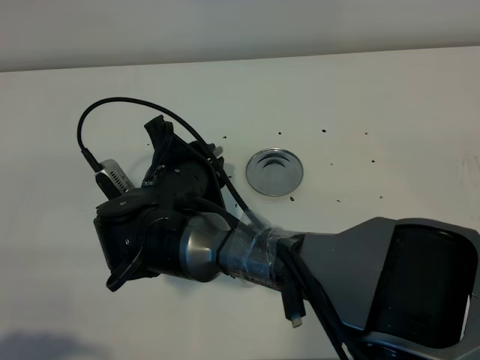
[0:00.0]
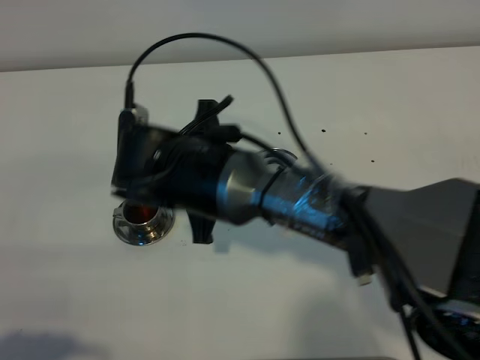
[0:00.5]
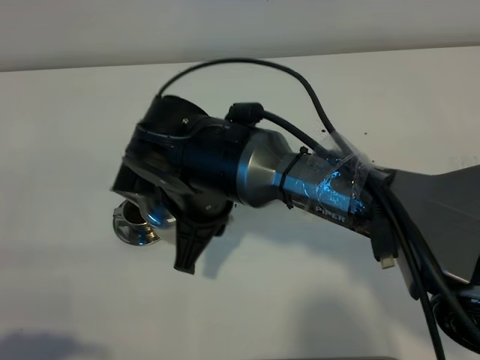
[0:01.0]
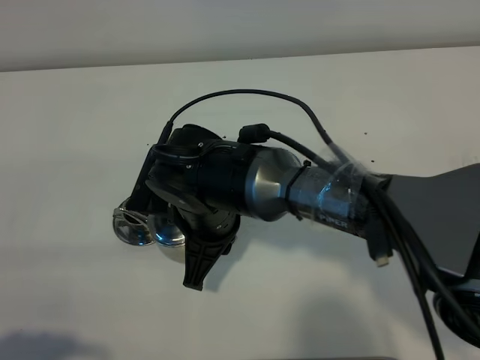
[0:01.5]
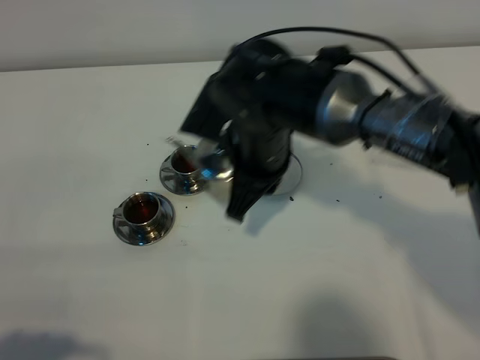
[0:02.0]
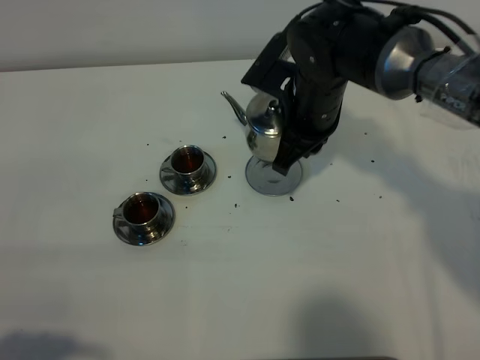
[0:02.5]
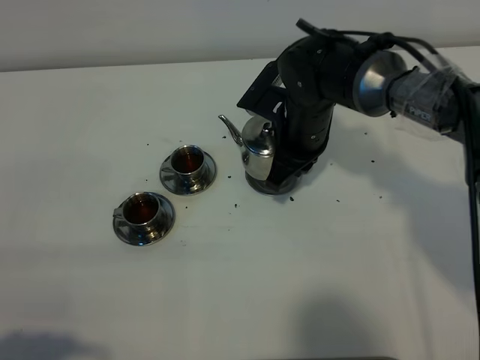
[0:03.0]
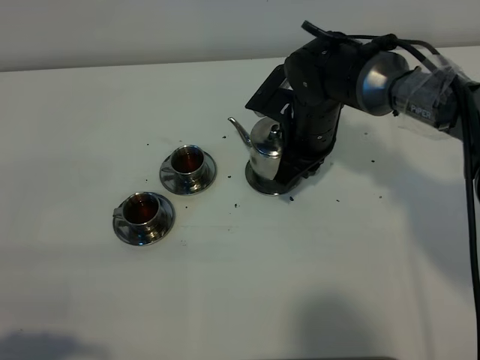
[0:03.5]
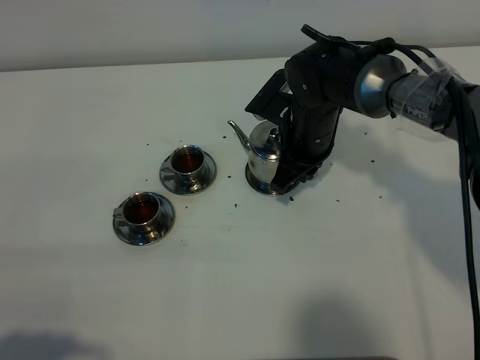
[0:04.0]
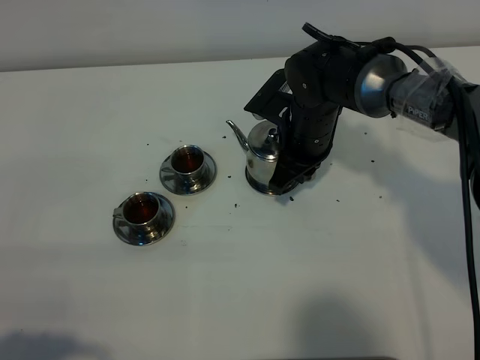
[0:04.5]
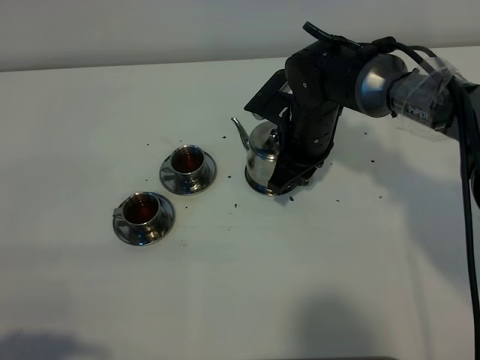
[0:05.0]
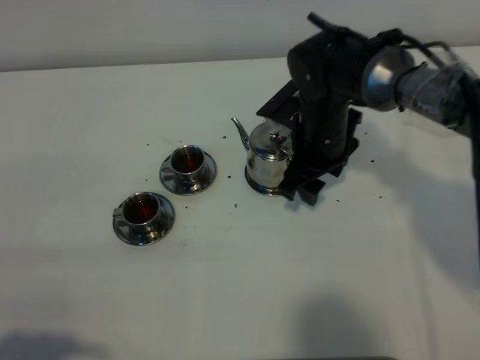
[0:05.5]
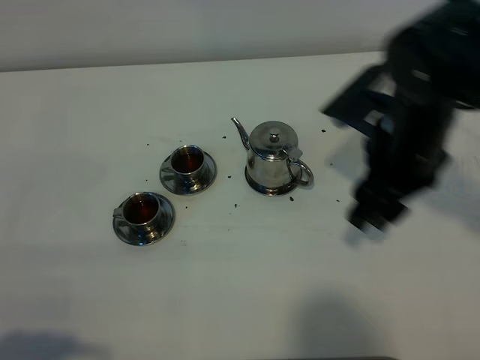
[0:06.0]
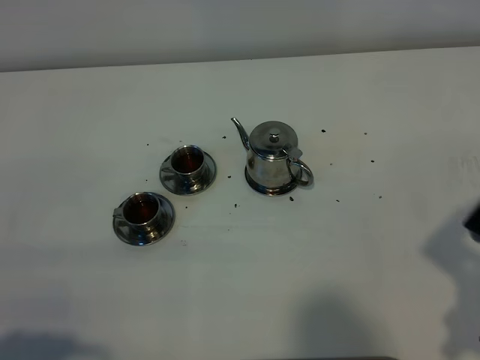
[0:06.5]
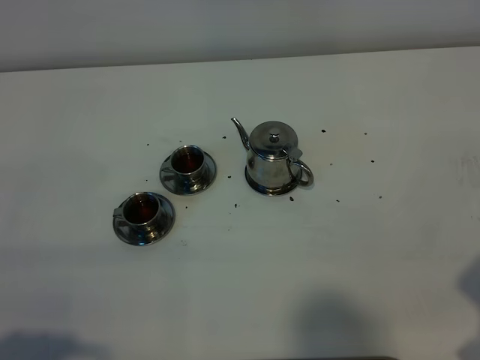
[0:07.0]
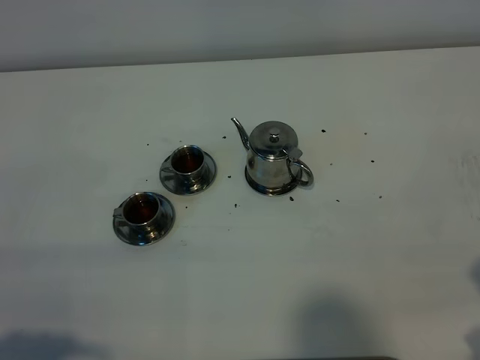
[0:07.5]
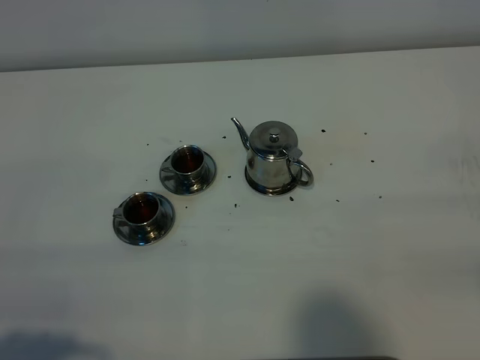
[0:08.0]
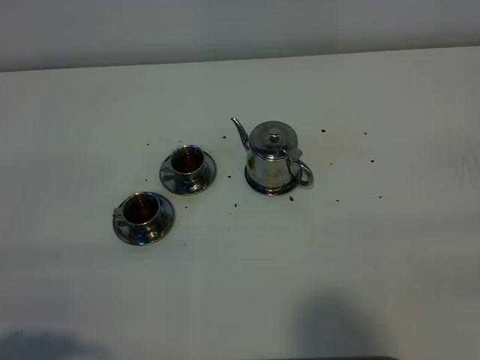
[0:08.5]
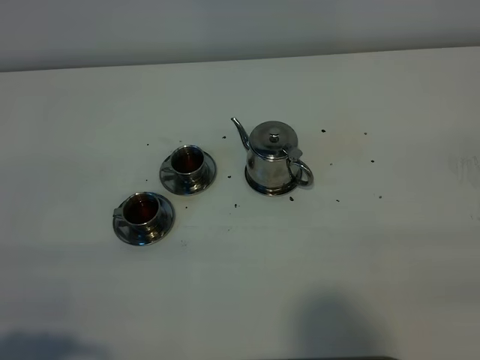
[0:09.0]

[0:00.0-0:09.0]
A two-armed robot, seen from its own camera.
Task of the whole recording: grasp the stainless steel teapot and pour the tea into the two stainless steel teacups one by one, put the stainless steel teapot back in its original place.
0:00.0 to 0:02.0: The right gripper heads to the right, upward and forward, covering approximately 15 cm.
0:02.0 to 0:04.5: The right gripper shifts approximately 10 cm forward, downward and to the right.
0:04.5 to 0:07.0: The right gripper travels backward and to the right by about 35 cm, and opens.

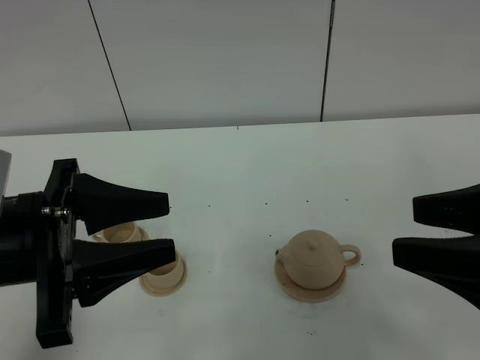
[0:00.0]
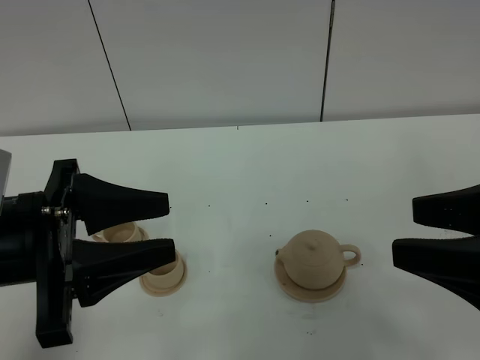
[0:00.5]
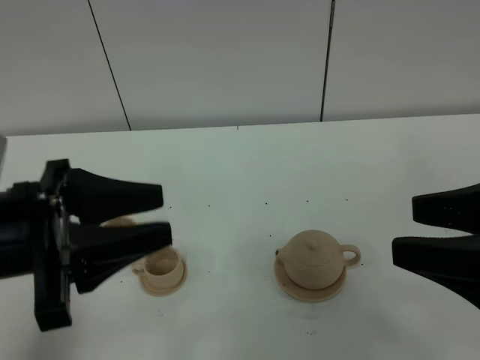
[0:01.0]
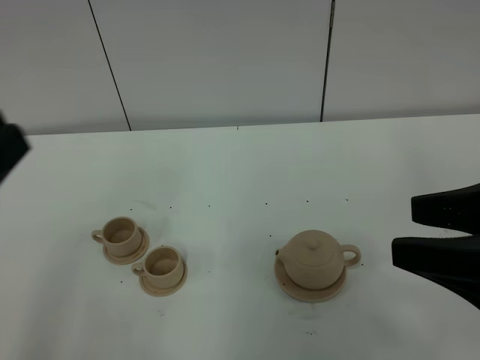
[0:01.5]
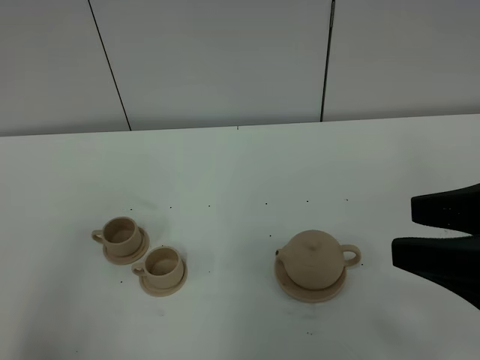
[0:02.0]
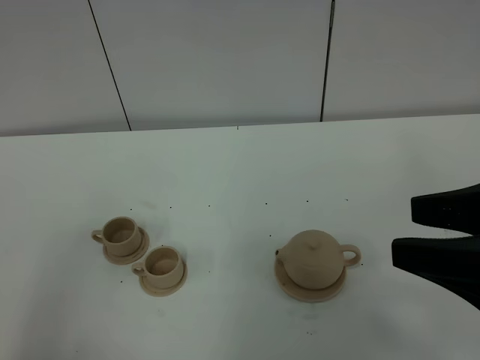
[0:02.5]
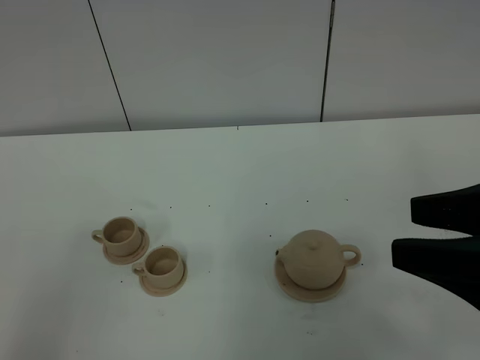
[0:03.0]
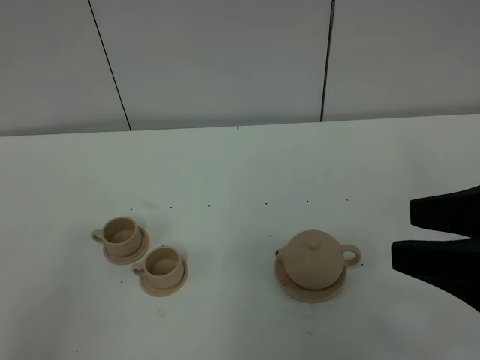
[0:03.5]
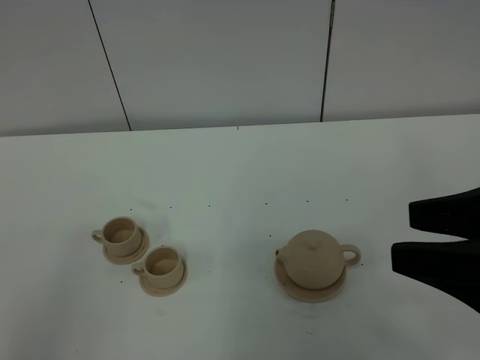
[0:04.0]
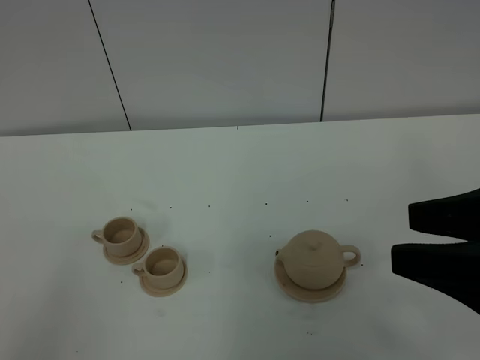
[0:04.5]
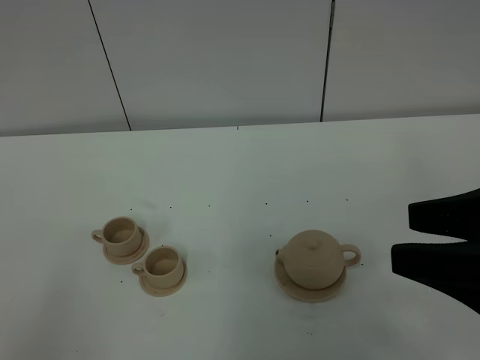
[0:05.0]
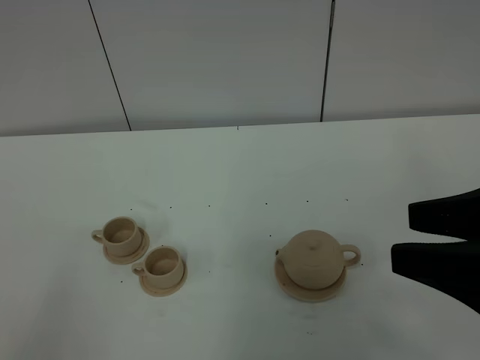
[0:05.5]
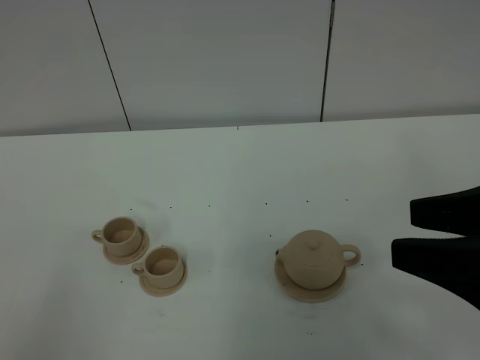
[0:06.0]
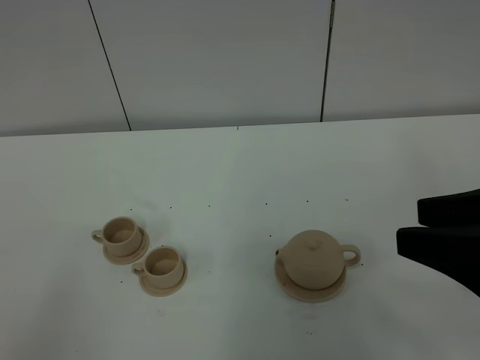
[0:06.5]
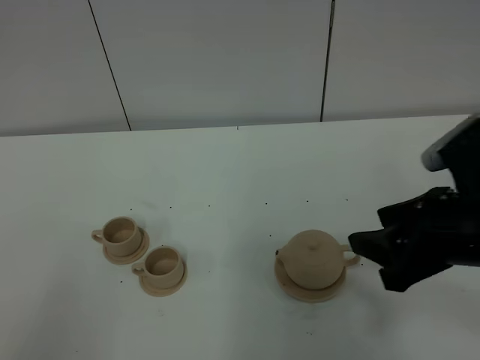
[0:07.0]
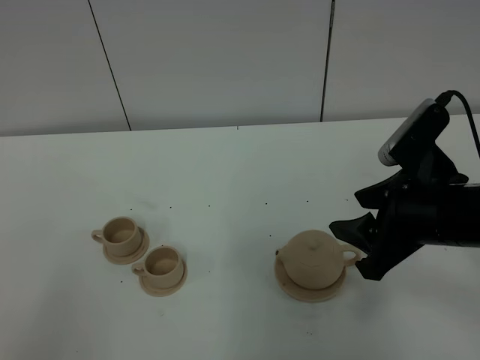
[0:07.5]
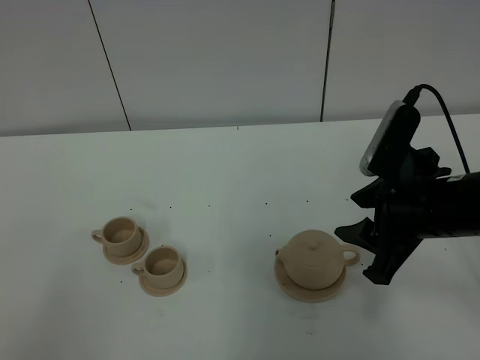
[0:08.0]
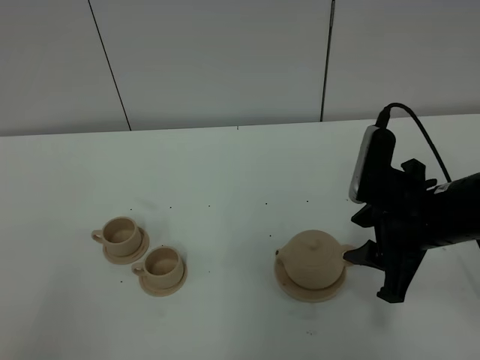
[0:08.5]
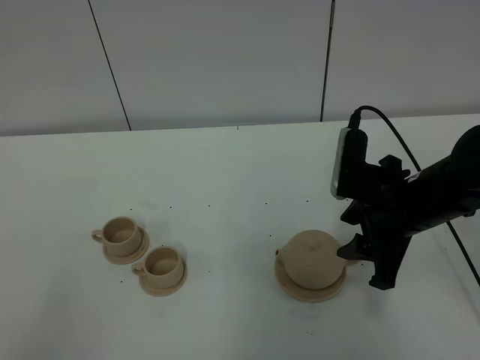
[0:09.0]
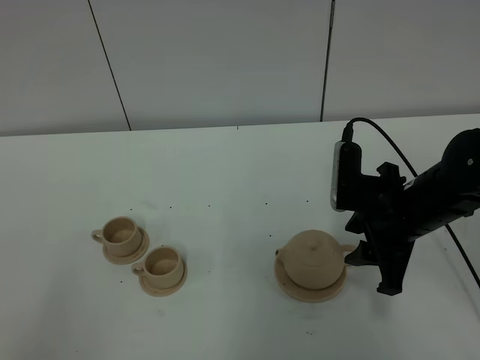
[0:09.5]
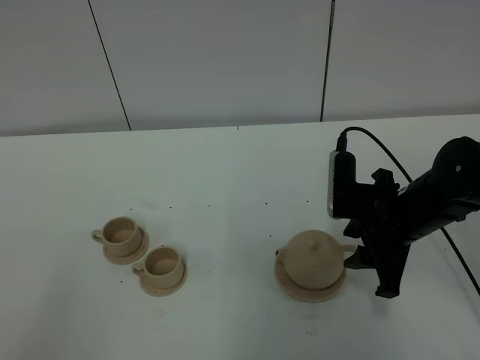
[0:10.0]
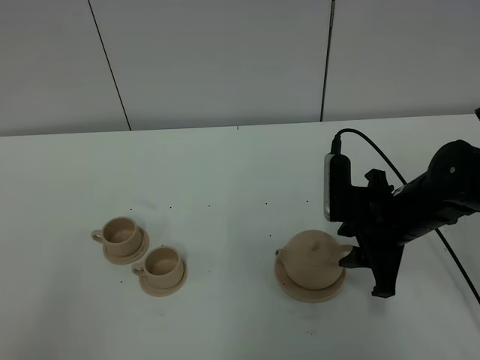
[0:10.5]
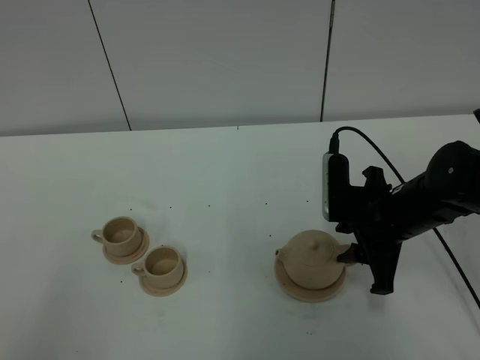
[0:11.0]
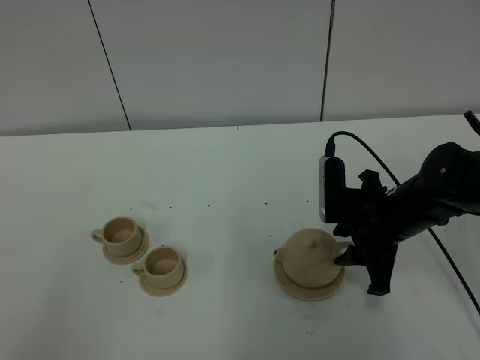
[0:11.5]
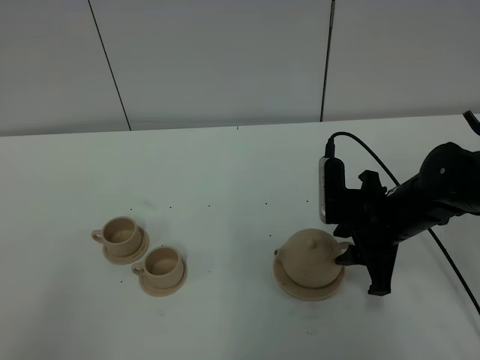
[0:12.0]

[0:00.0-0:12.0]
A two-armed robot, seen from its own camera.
Task of the whole recording: grasp the brown teapot and pour the tea into the two brown teacups one by one, put the brown teapot back in its original place.
0:00.0 to 0:02.0: The left gripper moves backward, upward and to the left, some 15 cm.
0:06.0 to 0:08.0: The right gripper goes some 15 cm forward, downward and to the left.
0:08.0 to 0:10.0: The right gripper is displaced downward by approximately 5 cm.
0:10.0 to 0:12.0: The grippers stay close to where they were, moving slightly.

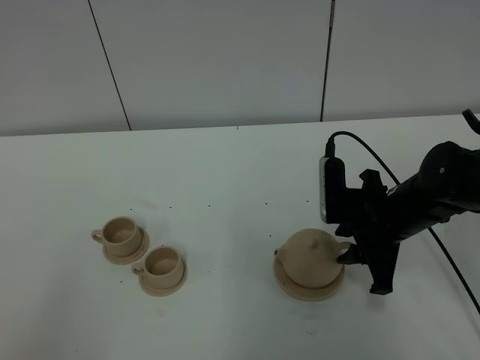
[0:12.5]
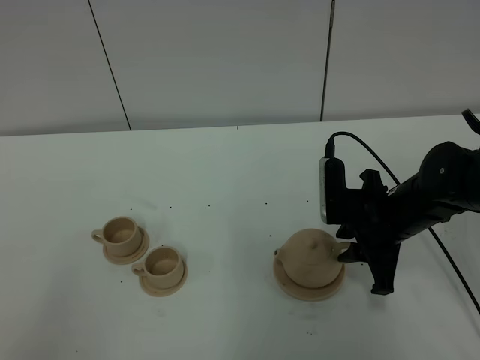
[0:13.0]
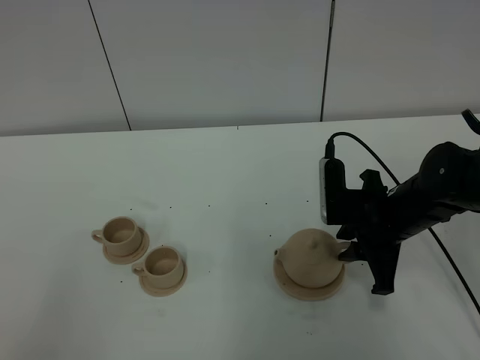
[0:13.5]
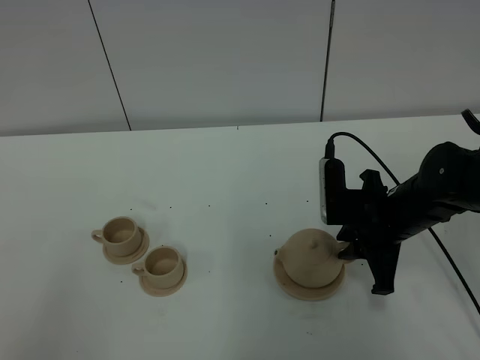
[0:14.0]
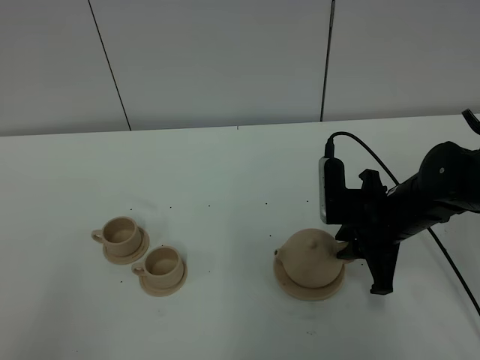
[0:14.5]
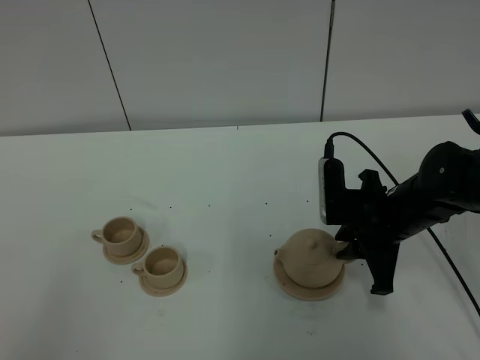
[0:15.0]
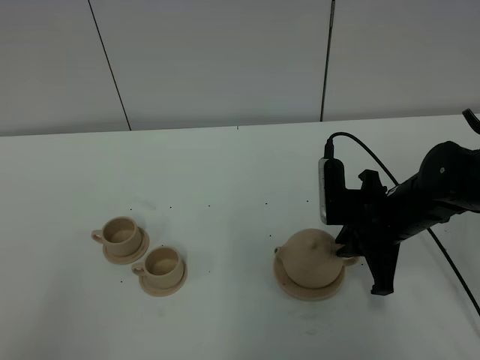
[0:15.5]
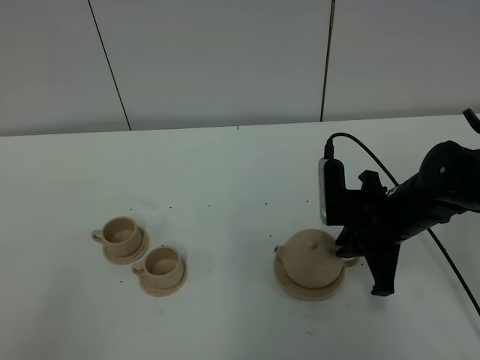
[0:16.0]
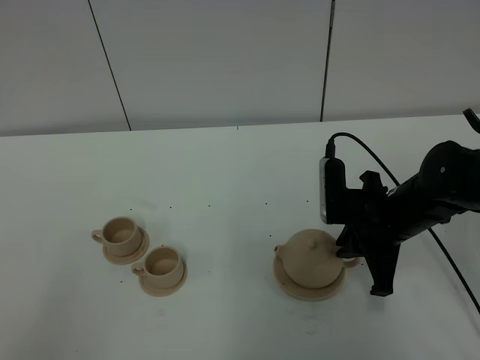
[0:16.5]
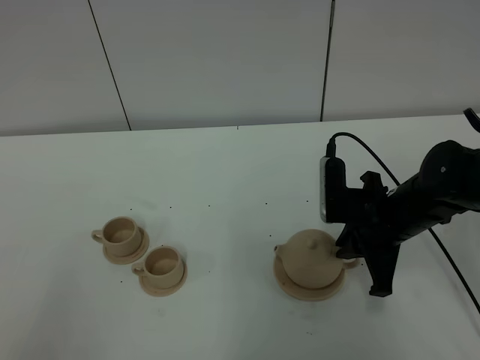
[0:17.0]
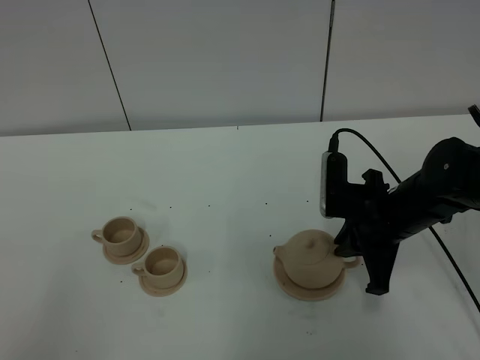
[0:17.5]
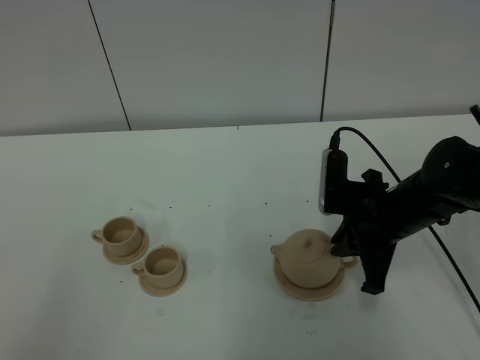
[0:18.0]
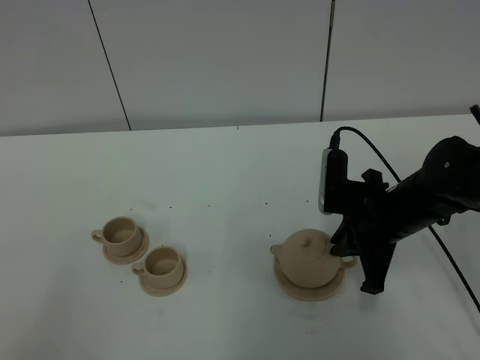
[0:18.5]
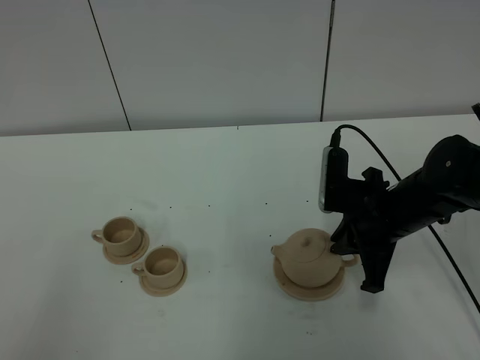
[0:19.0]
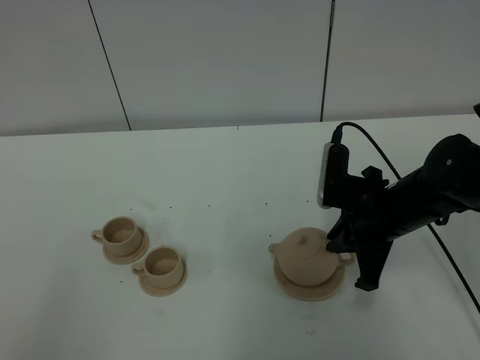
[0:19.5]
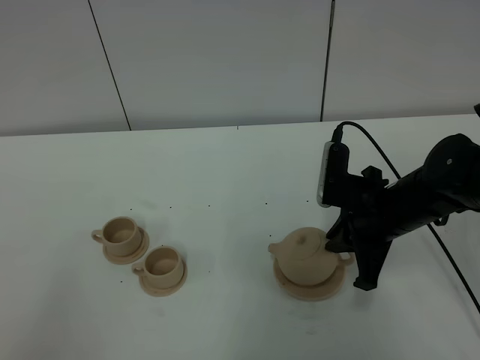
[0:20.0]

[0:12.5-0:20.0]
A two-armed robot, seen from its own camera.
Task of the whole recording: grasp the brown teapot and pour the tea into the two brown teacups one by one, put the brown teapot back in its original place.
0:12.5 to 0:16.5: Both grippers stay put.
0:16.5 to 0:18.0: There are only small adjustments of the grippers.
0:18.0 to 0:20.0: Both grippers stay put.
